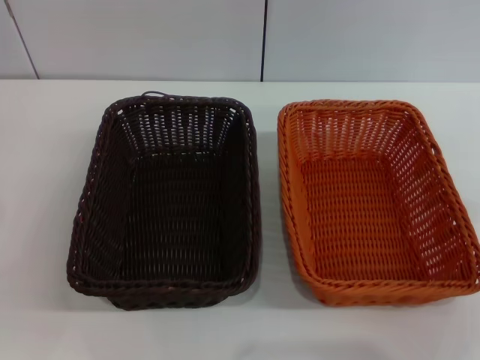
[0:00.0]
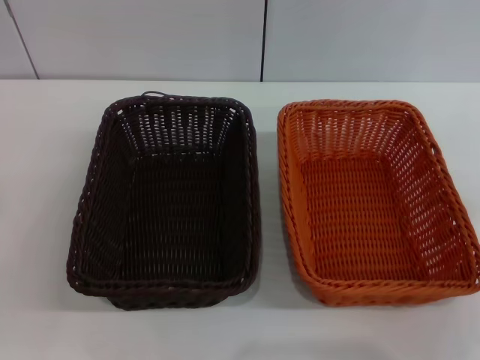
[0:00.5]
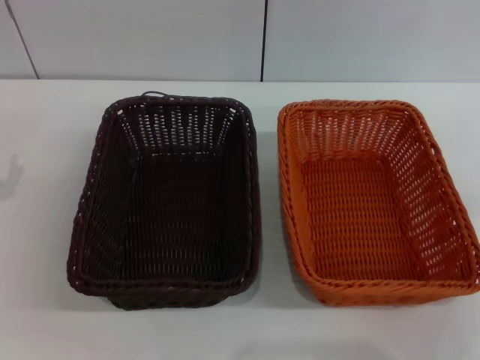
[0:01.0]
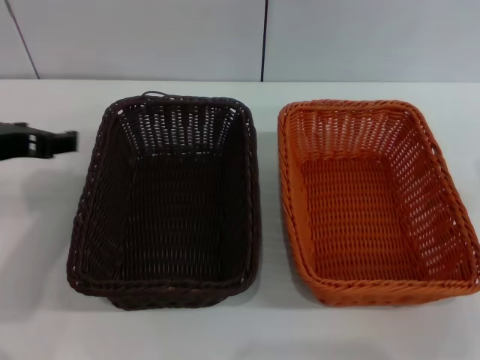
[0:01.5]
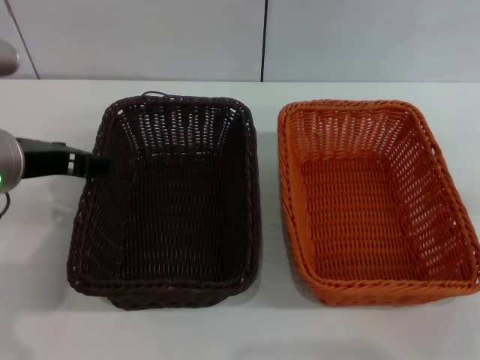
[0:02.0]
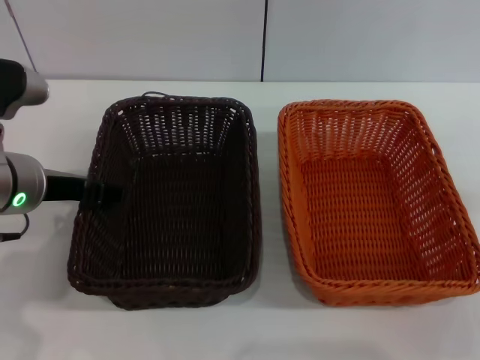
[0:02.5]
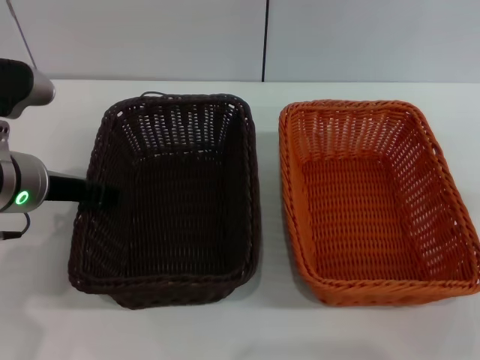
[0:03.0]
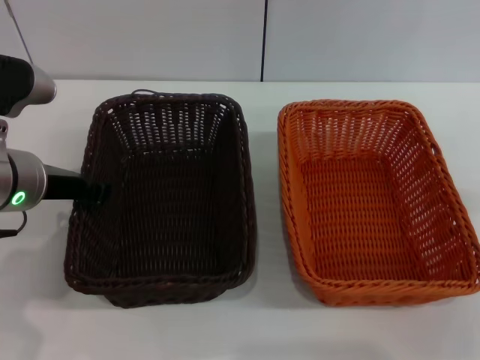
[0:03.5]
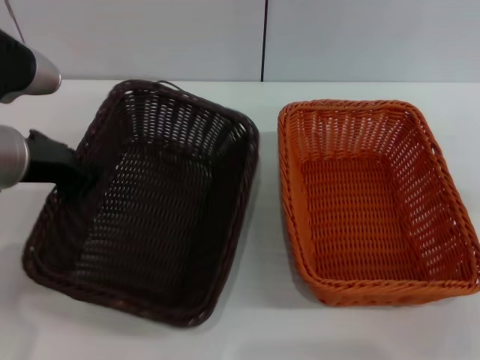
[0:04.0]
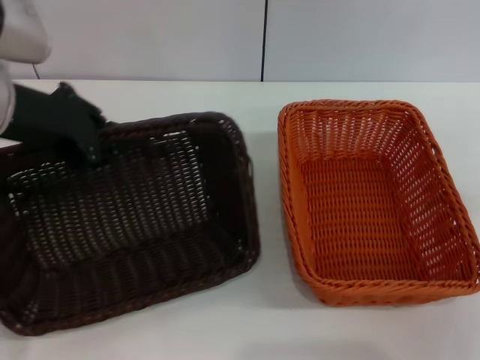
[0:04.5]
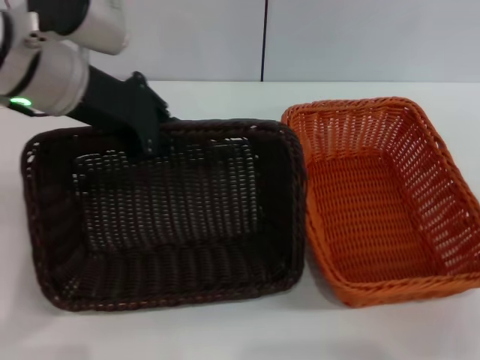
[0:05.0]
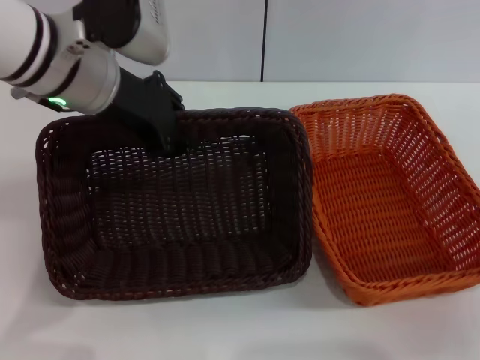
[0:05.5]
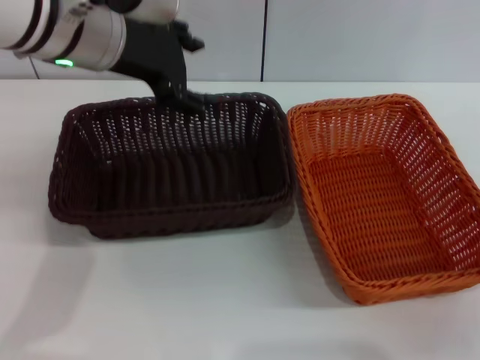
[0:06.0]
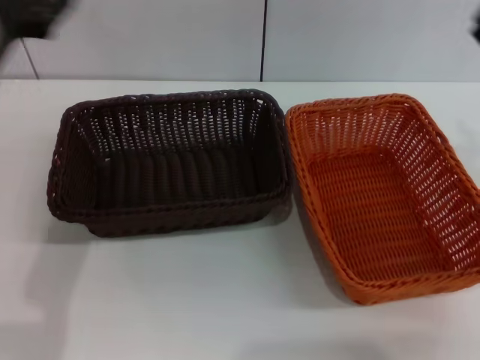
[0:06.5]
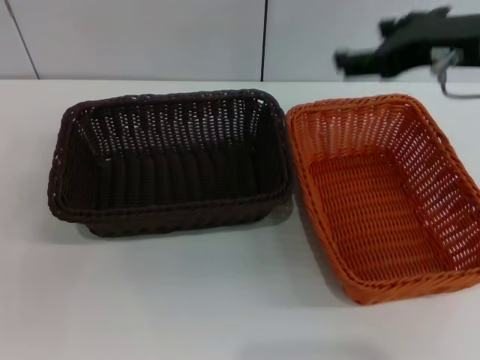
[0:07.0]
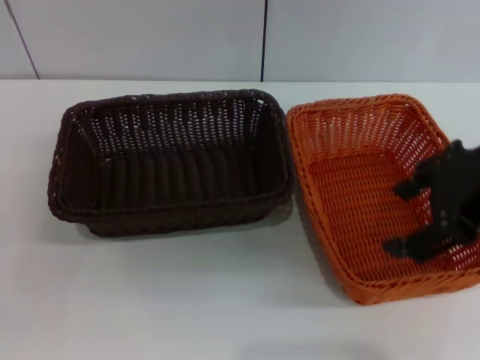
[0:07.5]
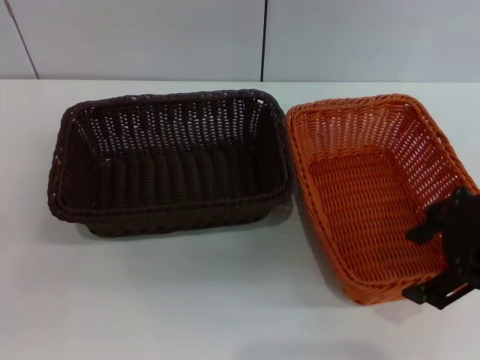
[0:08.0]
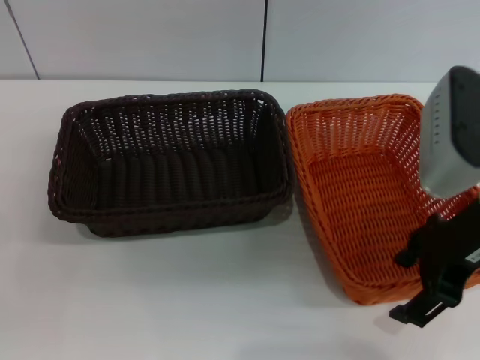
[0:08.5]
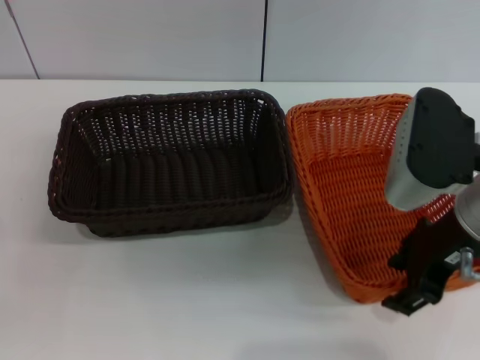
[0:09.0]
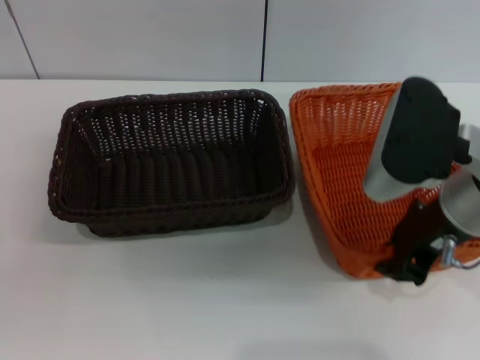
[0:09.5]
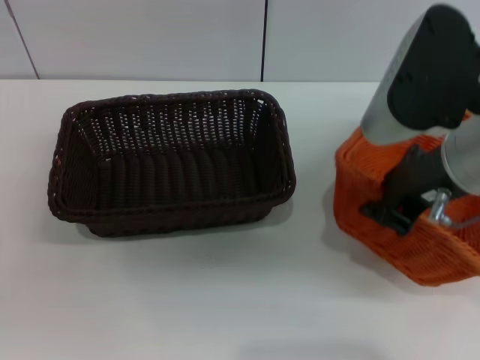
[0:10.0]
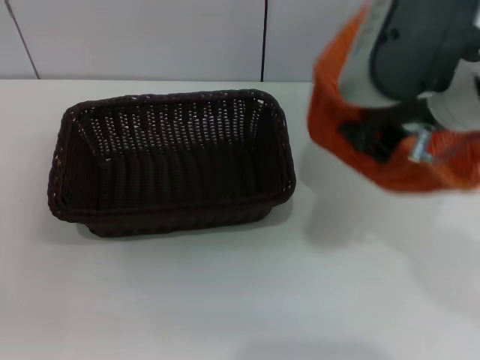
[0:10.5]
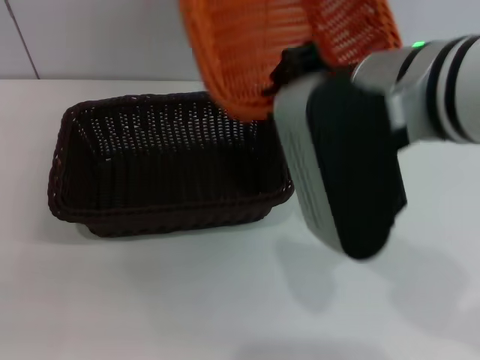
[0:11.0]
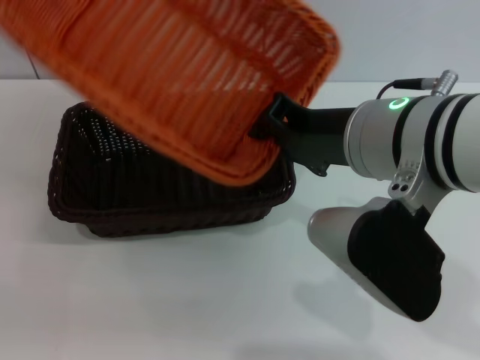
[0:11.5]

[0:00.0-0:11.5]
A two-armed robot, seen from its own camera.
Step, 0:00.0 to 0:04.0: Pick up the dark basket with the left gripper.
Step, 0:04.5 to 0:05.5: Place the dark basket in the center of view with the left gripper.
Step, 0:06.5 to 0:10.0: Pick up the light basket with the right gripper.
0:00.0 to 0:02.0: The left gripper shifts approximately 20 cm upward, to the right and forward.
0:02.0 to 0:04.0: The left gripper closes up.
0:04.0 to 0:06.0: The left gripper shifts approximately 10 cm to the right, upward and forward, and opens.
0:06.0 to 0:07.5: The right gripper is displaced upward and to the left by approximately 25 cm. The left gripper moves downward, backward and to the left, some 35 cm.
0:07.5 to 0:09.5: The right gripper heads downward, covering some 10 cm, and closes.
0:09.5 to 0:11.5: The right gripper goes some 5 cm to the left.

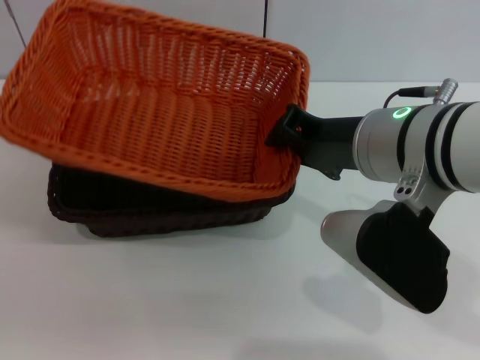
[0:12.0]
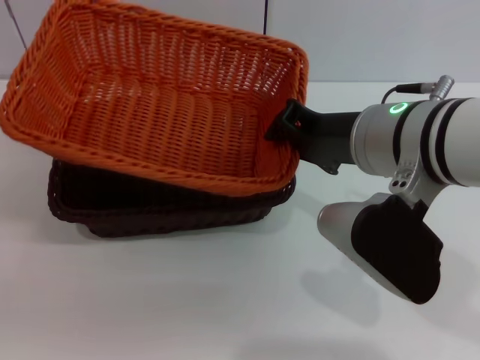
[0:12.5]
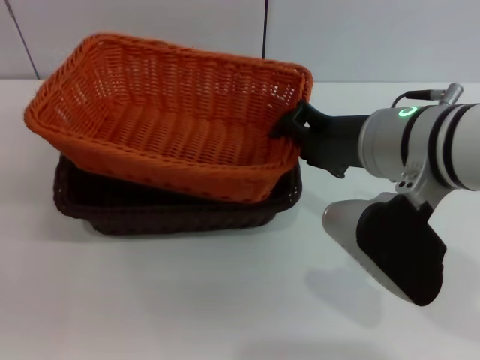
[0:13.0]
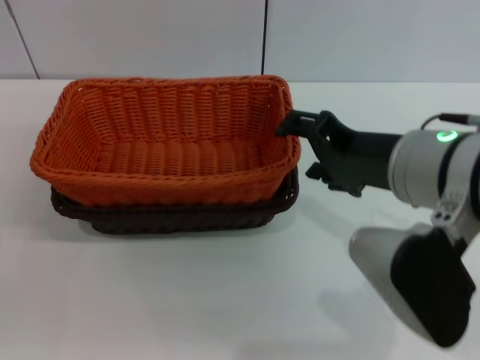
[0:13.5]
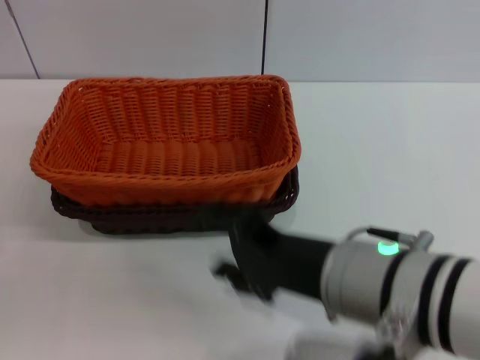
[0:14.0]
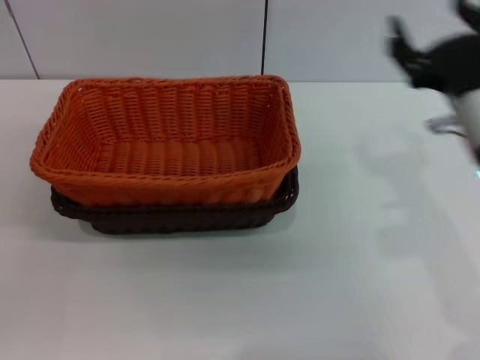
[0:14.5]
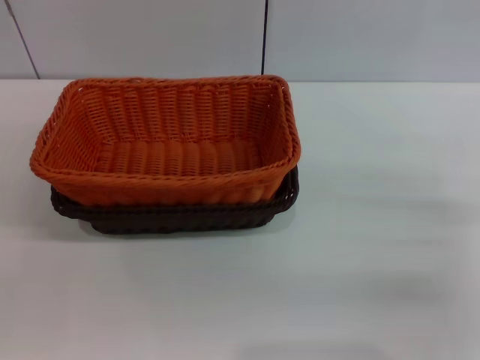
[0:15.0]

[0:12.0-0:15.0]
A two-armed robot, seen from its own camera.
0:12.0 to 0:13.5: The right gripper opens up.
0:13.5 to 0:15.0: The right gripper travels to the right and downward by about 20 cm.

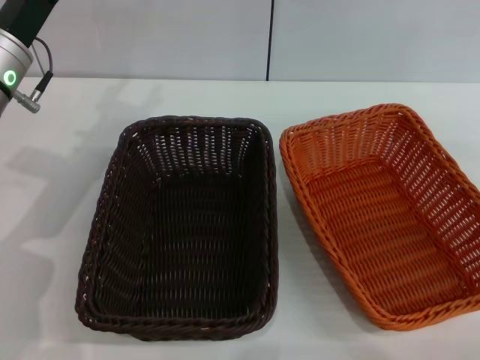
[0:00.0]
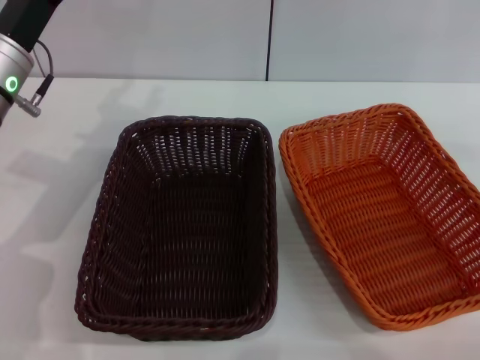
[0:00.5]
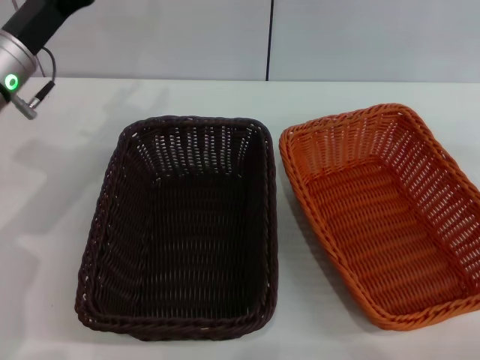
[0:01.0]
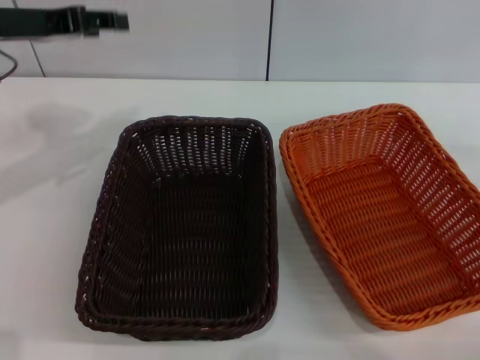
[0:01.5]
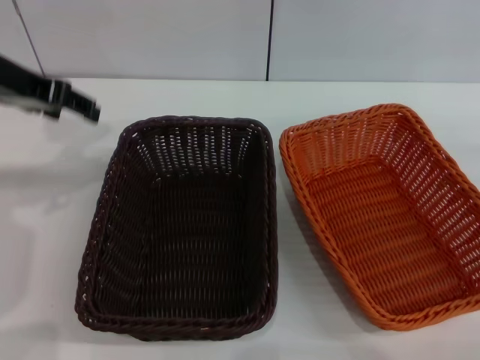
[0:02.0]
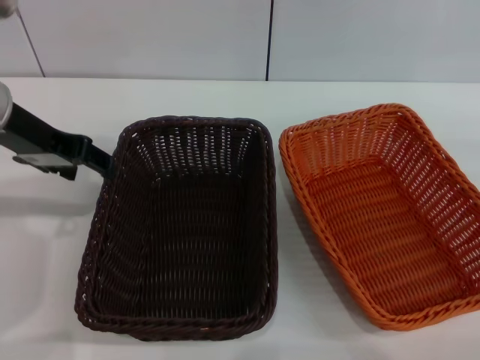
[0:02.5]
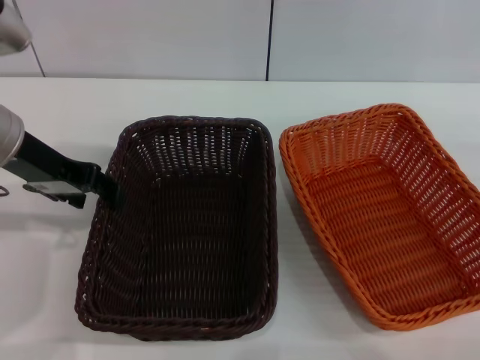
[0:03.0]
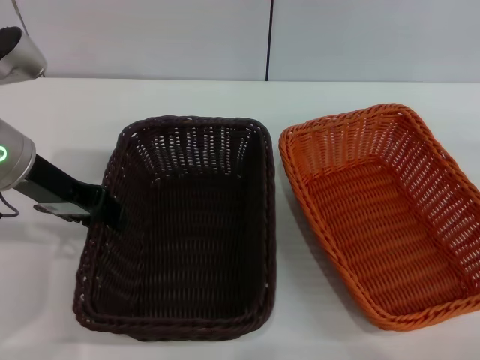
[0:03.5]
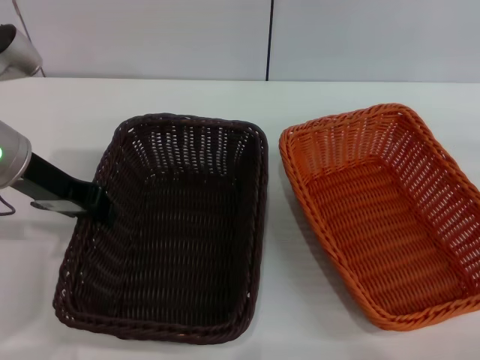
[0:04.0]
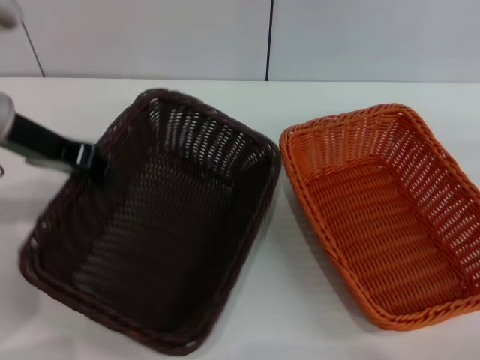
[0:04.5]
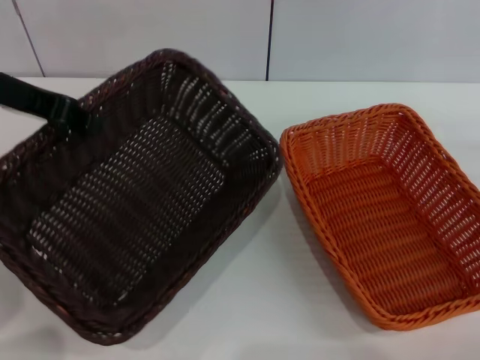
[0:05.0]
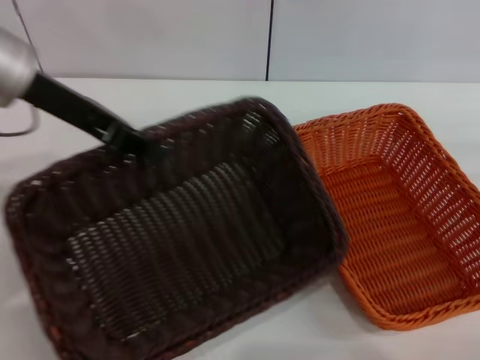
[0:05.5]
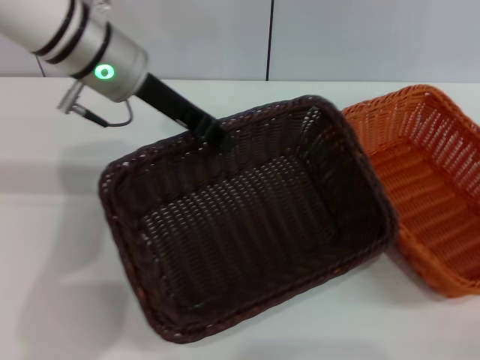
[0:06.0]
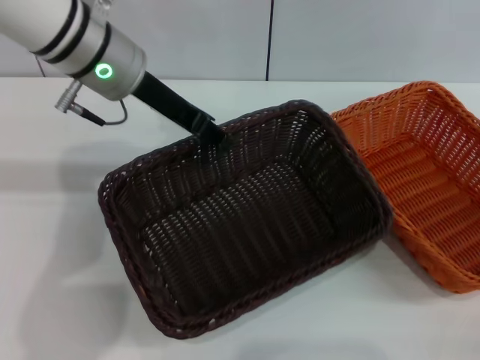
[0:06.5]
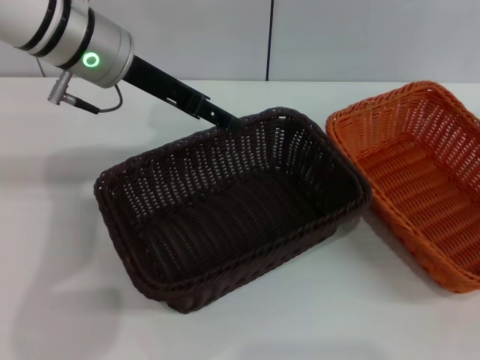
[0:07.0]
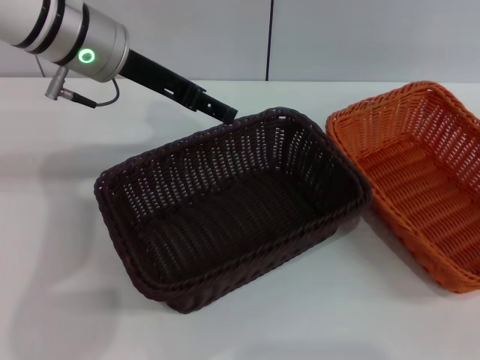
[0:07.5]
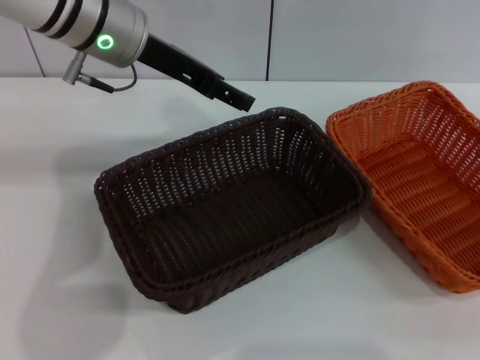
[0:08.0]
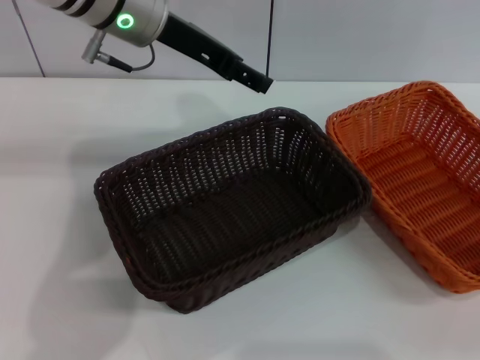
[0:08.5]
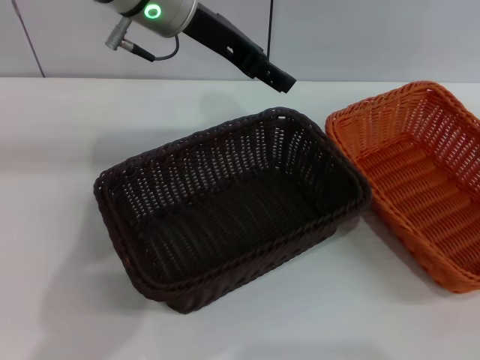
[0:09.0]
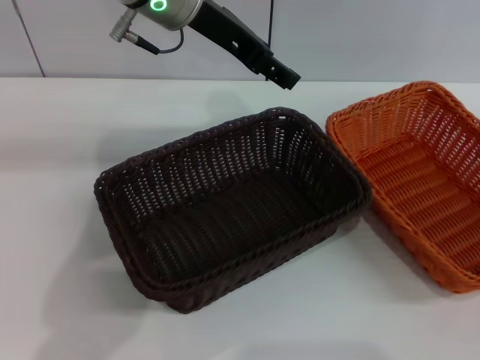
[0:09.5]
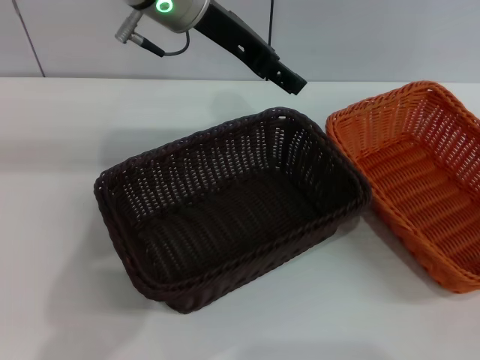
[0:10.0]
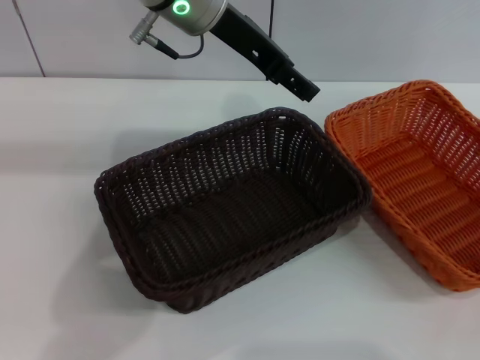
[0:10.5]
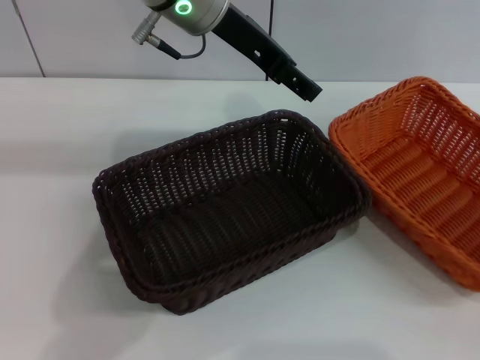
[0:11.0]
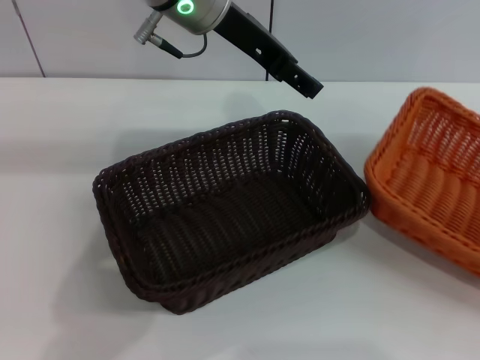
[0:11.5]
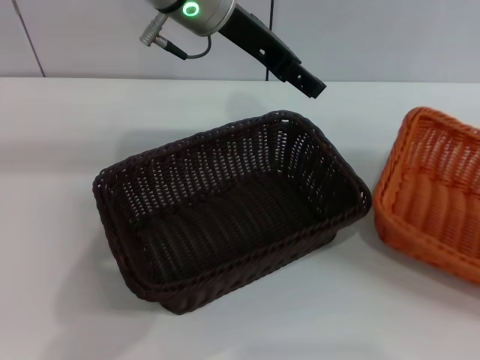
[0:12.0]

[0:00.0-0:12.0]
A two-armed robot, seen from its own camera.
Step, 0:00.0 to 0:04.5: Pick up the dark basket with the left gripper.
Step, 0:05.0 to 0:06.5: Place the dark basket in the center of view with the left gripper.
0:00.0 to 0:02.0: The left gripper is displaced upward by about 10 cm.
0:02.0 to 0:04.0: The left gripper shifts about 5 cm downward, and closes up.
0:04.0 to 0:06.0: The left gripper is displaced to the right and forward by roughly 10 cm.
0:06.0 to 0:08.0: The right gripper is displaced upward by some 15 cm, while the left gripper opens up.
0:08.0 to 0:10.0: The left gripper travels to the right by some 5 cm, while the right gripper travels downward by roughly 10 cm.
0:10.0 to 0:12.0: The right gripper is displaced to the right by some 5 cm, and closes its fingers.
